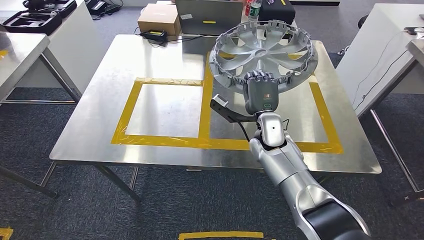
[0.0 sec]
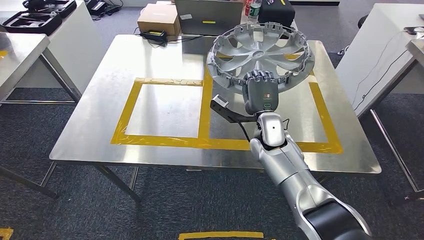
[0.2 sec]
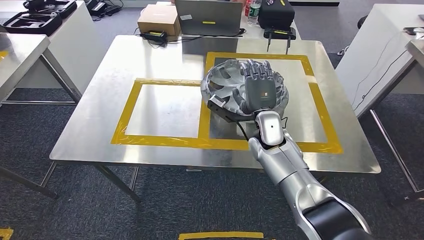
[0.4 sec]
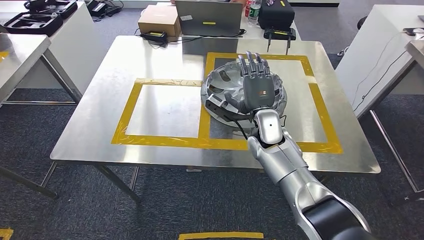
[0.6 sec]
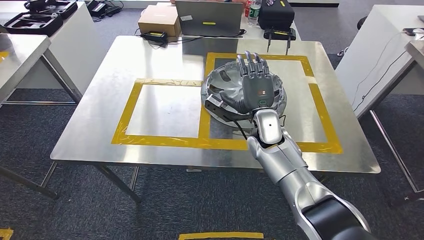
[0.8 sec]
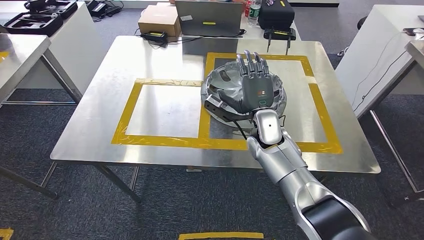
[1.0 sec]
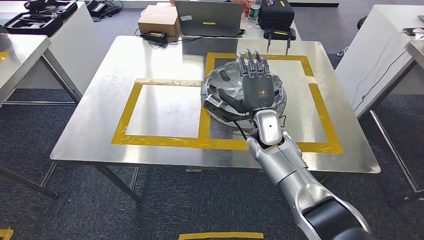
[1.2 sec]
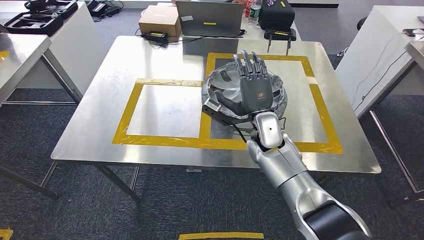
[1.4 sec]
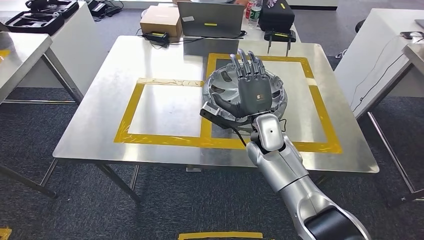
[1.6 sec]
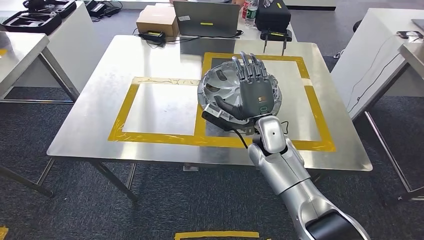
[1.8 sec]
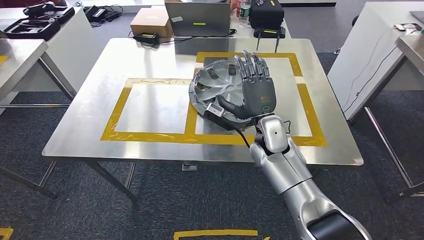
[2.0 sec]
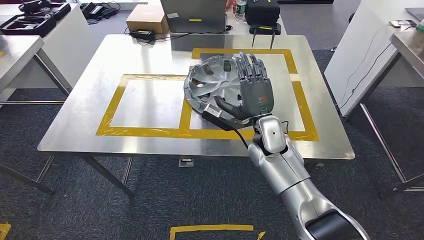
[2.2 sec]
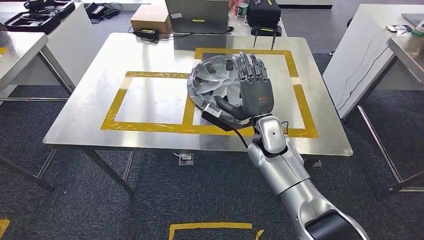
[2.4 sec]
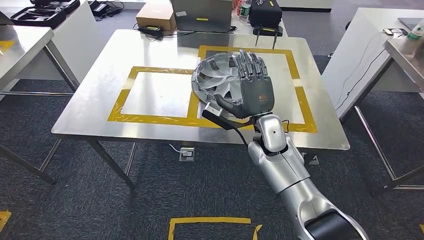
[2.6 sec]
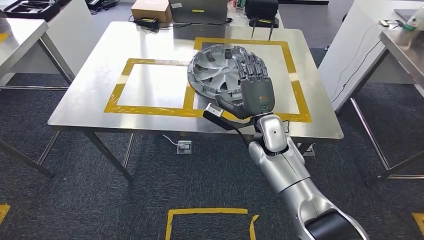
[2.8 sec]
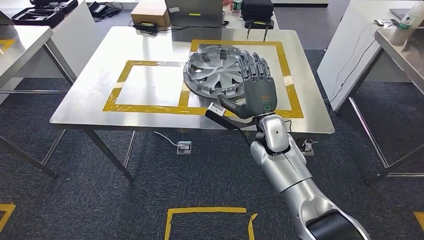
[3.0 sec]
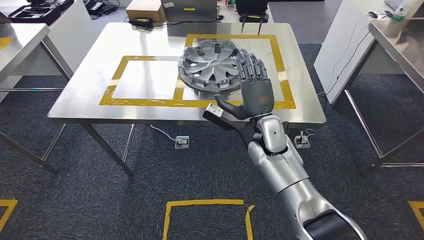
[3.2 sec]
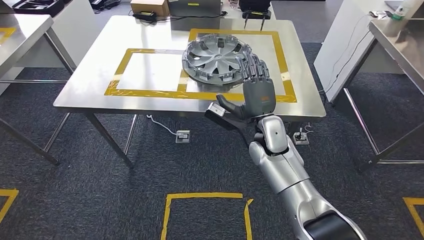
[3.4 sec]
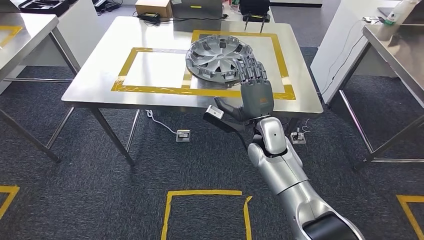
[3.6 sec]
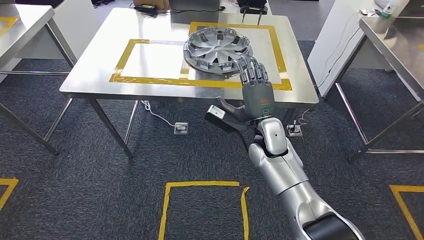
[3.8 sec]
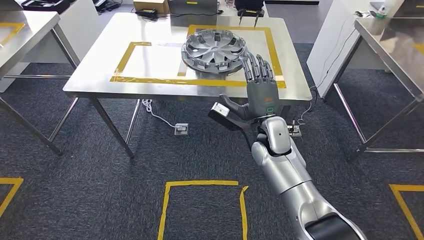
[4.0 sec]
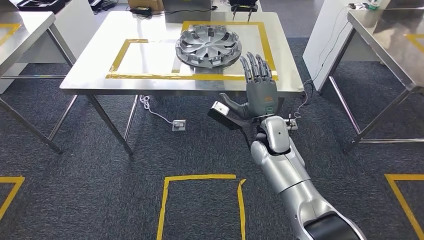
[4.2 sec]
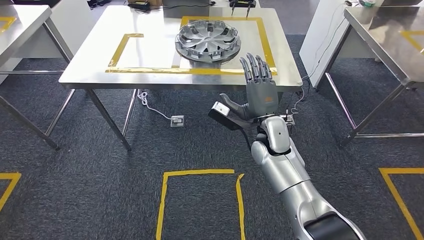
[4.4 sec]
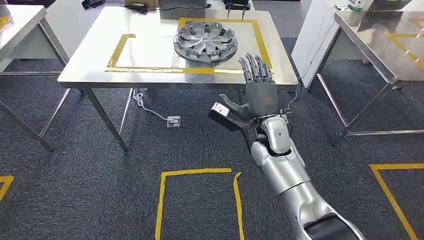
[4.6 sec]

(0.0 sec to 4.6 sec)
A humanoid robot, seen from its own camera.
Step, 0.0 sec - 4.4 sec: Insert the large material into the corresponding slot on the workbench.
